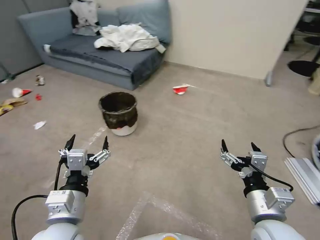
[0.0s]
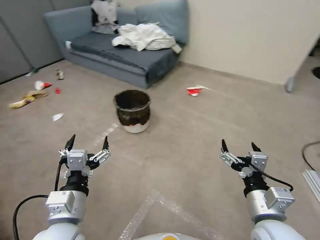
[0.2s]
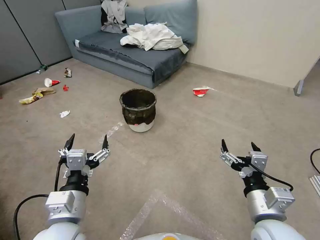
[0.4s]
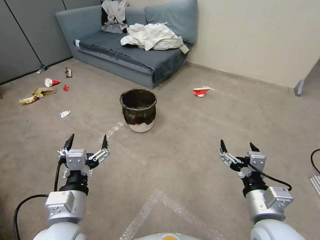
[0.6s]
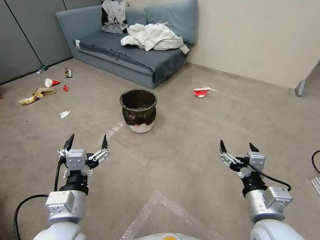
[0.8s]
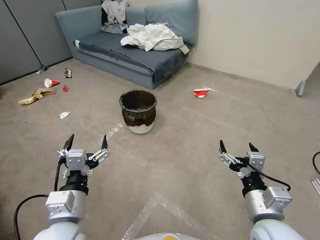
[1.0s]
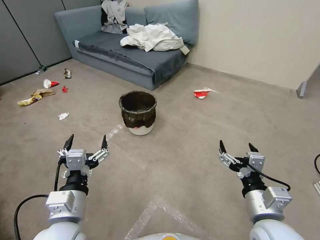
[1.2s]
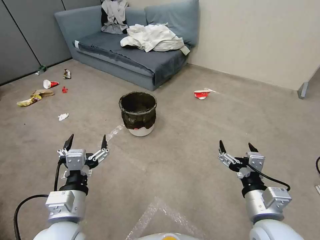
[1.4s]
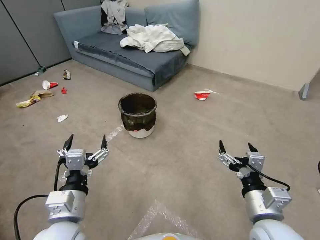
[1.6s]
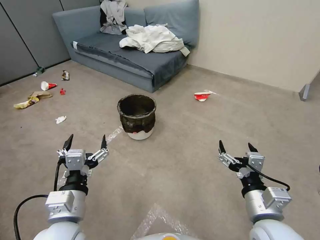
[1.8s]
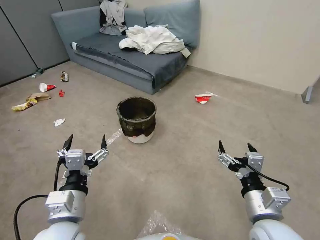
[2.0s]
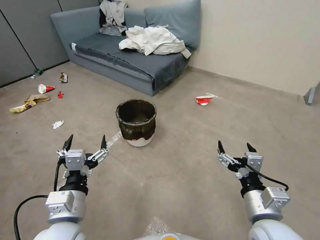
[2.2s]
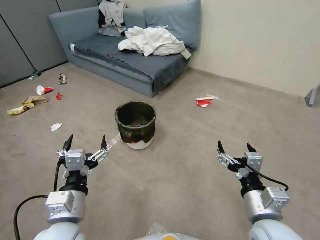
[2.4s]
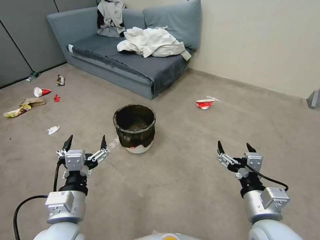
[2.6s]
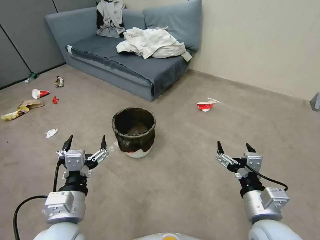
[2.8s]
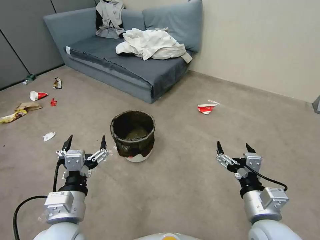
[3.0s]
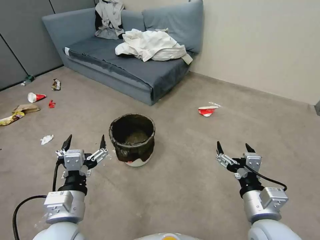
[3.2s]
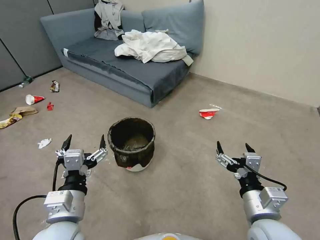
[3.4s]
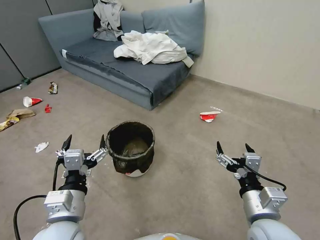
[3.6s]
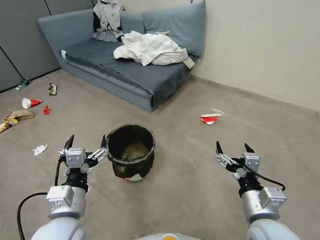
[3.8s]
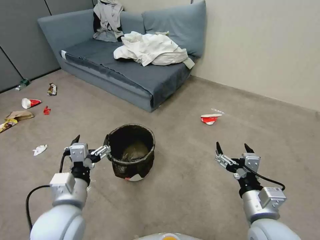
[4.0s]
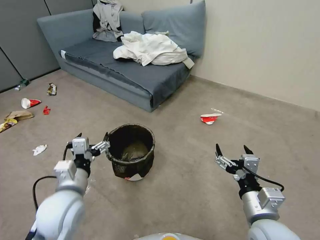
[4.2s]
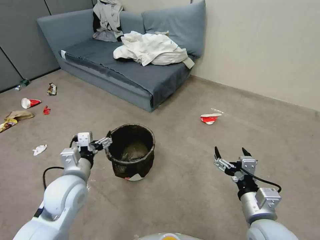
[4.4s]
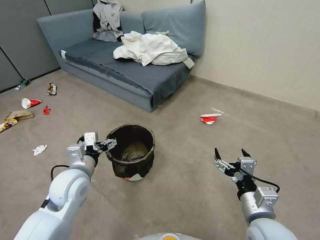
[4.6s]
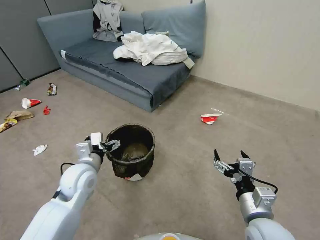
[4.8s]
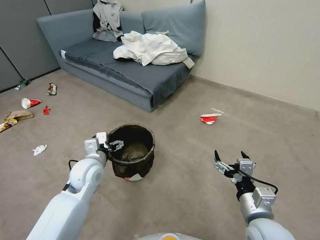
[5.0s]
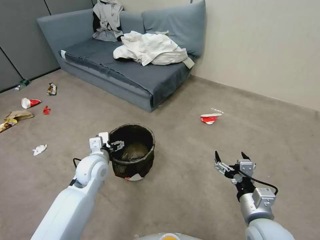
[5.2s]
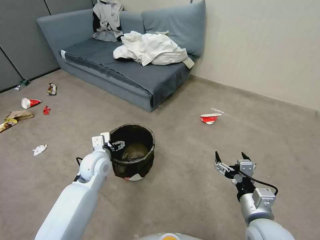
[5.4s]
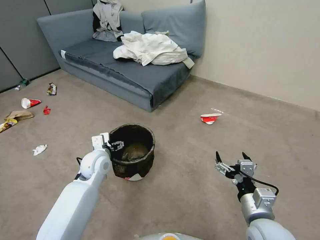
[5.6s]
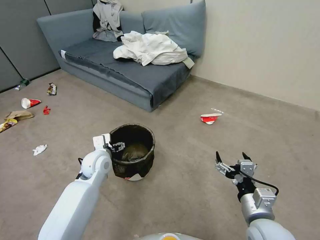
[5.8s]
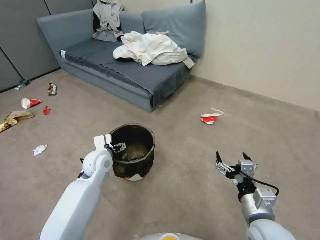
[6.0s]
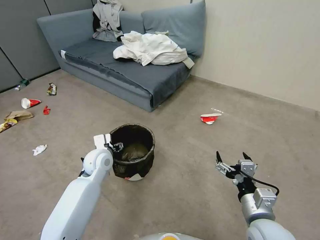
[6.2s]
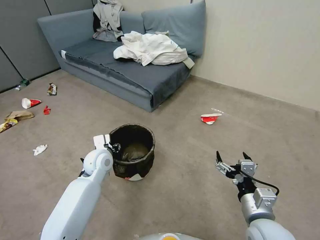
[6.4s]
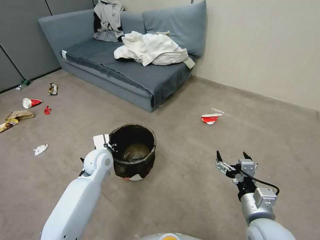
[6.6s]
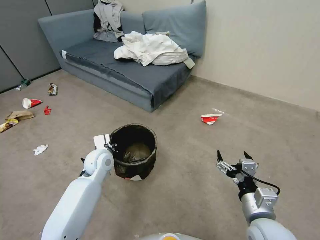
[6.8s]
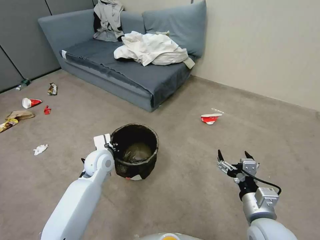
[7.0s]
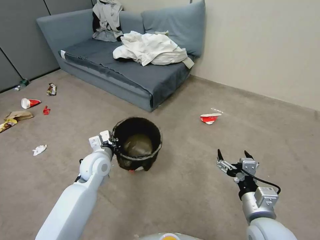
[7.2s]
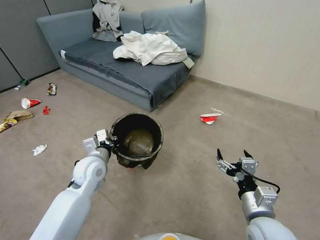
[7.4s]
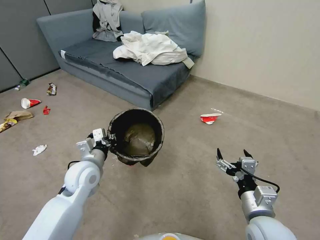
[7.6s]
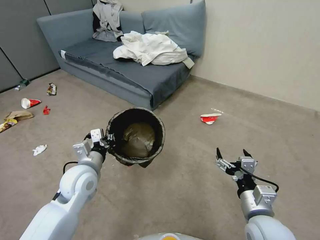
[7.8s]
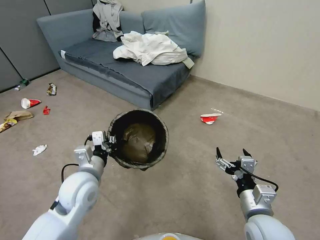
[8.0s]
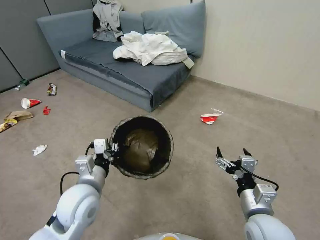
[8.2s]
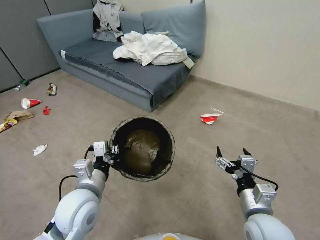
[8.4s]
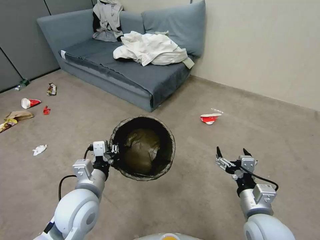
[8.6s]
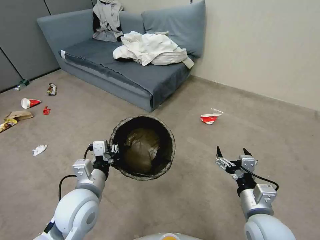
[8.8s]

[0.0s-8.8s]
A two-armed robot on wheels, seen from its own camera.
Task of the whole recording: Pick up the trash can from the floor.
1.4s to 3.0s: Both grippers stay about where they are.
3.0s to 4.4s: The left gripper travels forward by some 10 cm.
4.4s to 5.8s: The left gripper goes about 15 cm forward and downward.
5.8s to 7.4s: The left gripper closes.
7.4s to 8.8s: The left gripper heads backward, covering about 10 cm.

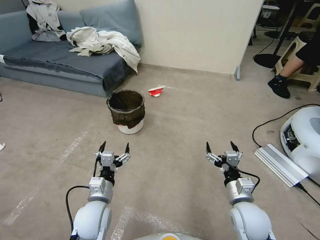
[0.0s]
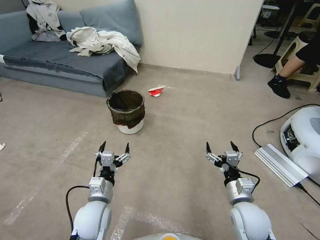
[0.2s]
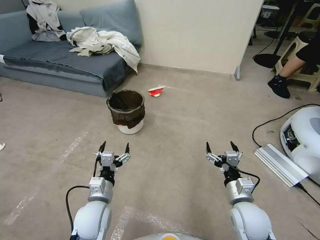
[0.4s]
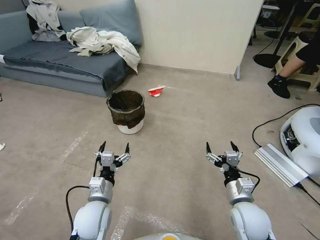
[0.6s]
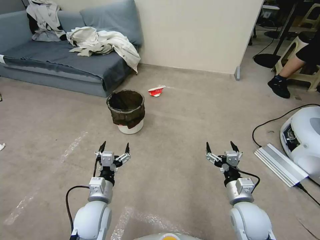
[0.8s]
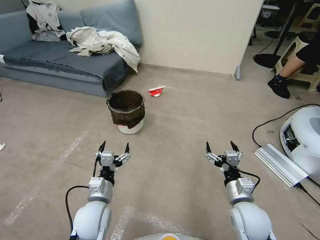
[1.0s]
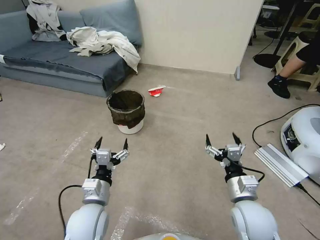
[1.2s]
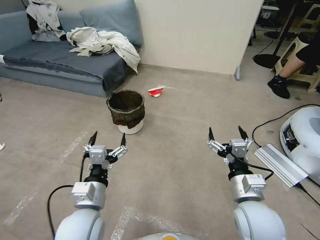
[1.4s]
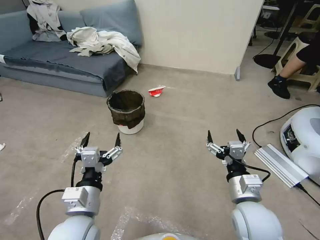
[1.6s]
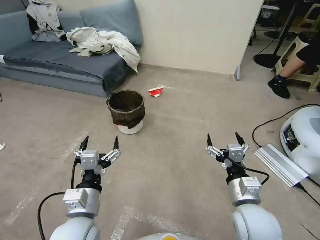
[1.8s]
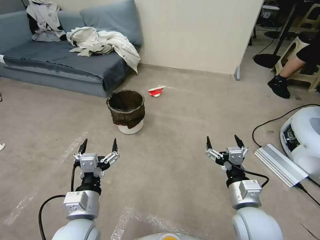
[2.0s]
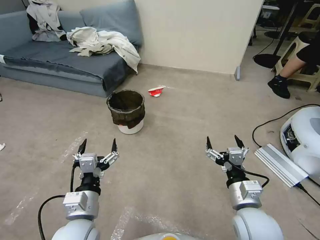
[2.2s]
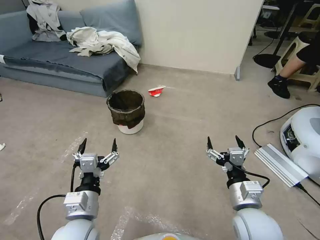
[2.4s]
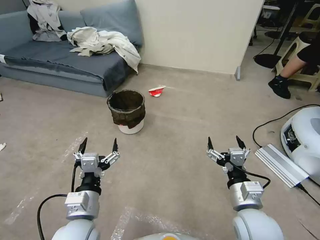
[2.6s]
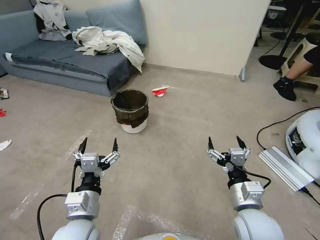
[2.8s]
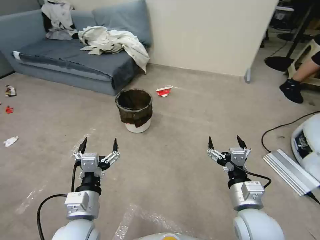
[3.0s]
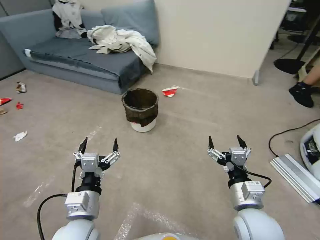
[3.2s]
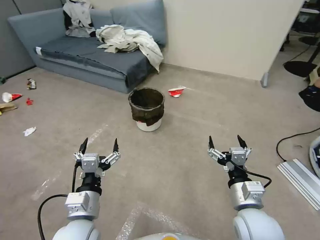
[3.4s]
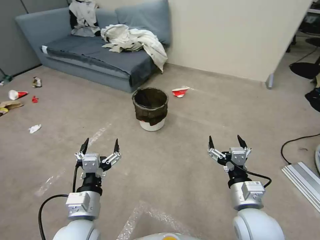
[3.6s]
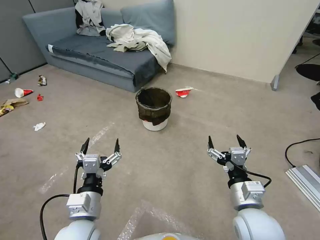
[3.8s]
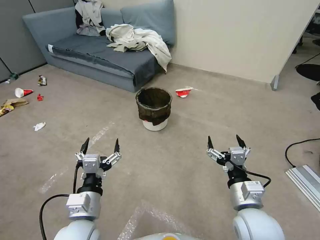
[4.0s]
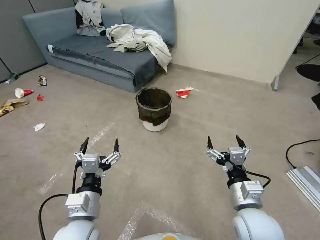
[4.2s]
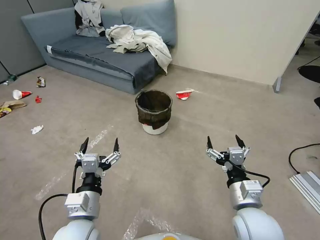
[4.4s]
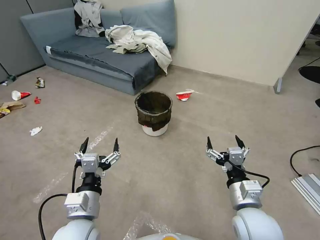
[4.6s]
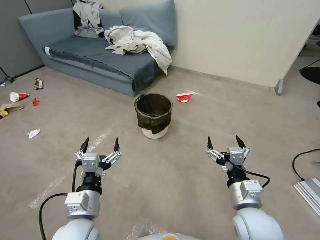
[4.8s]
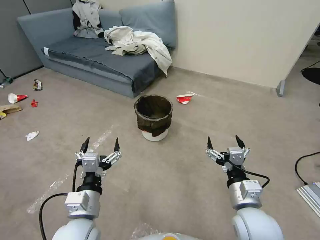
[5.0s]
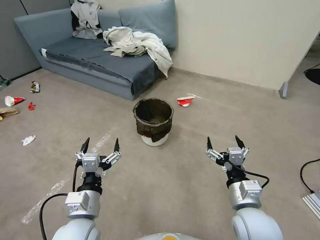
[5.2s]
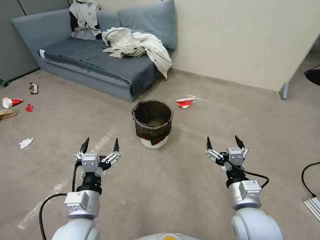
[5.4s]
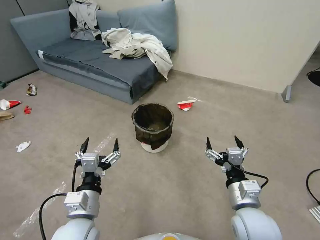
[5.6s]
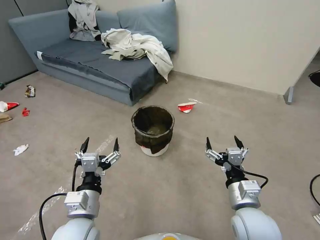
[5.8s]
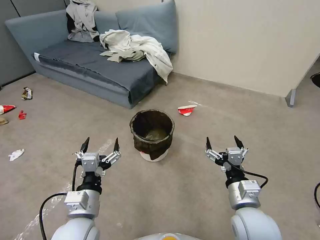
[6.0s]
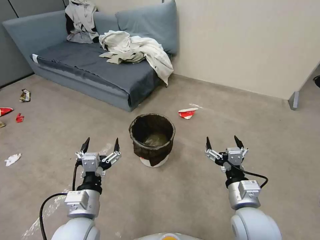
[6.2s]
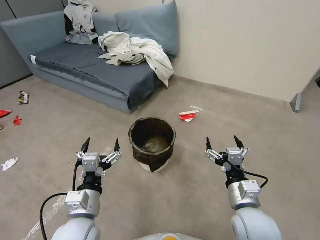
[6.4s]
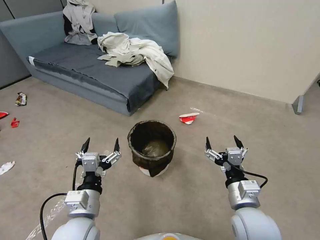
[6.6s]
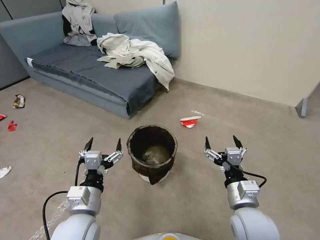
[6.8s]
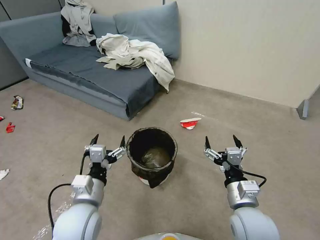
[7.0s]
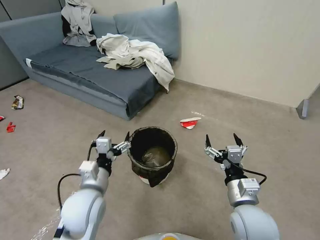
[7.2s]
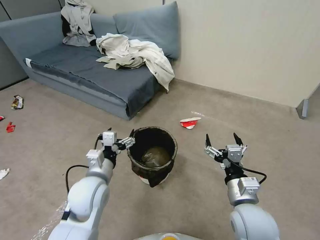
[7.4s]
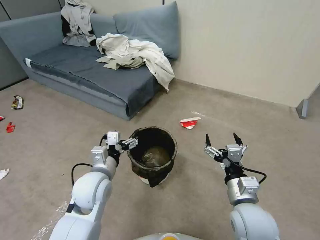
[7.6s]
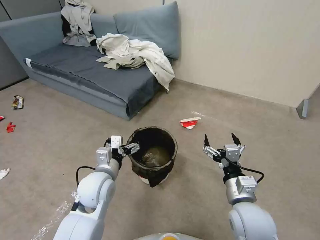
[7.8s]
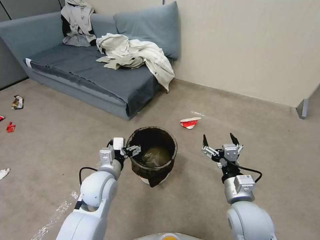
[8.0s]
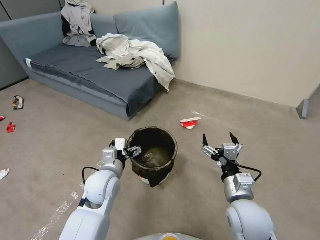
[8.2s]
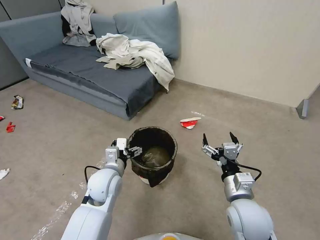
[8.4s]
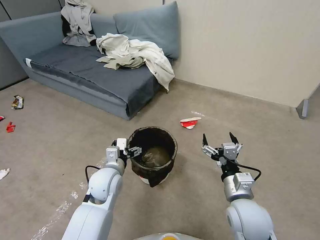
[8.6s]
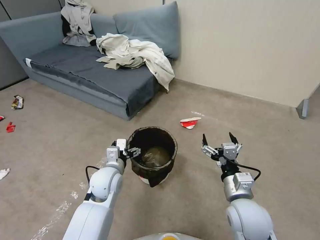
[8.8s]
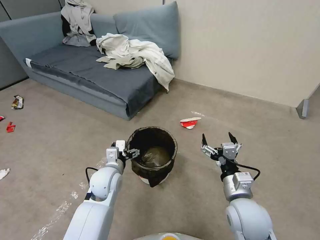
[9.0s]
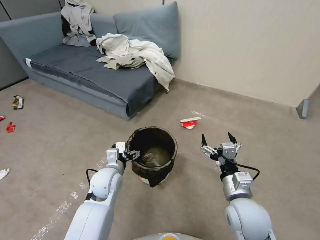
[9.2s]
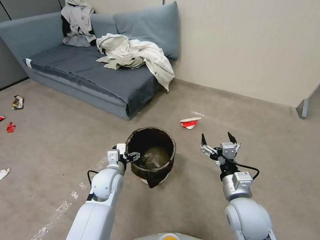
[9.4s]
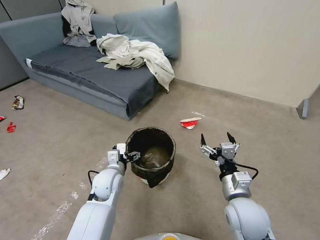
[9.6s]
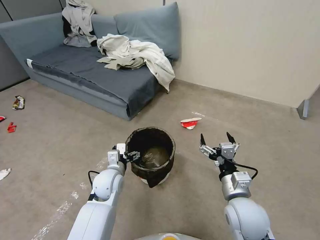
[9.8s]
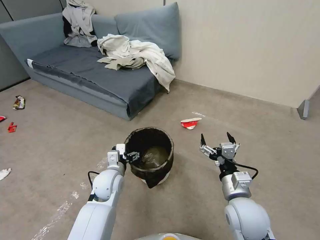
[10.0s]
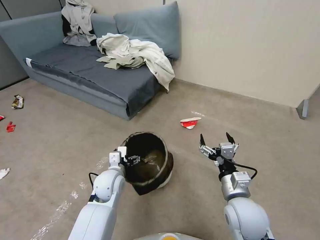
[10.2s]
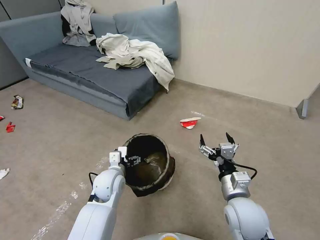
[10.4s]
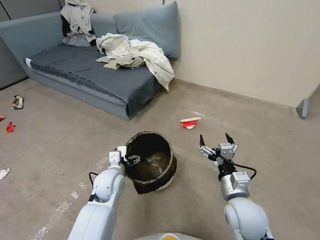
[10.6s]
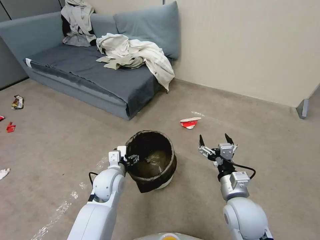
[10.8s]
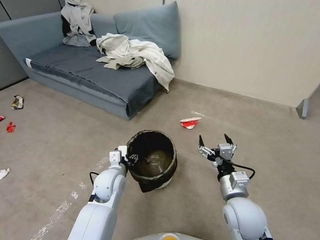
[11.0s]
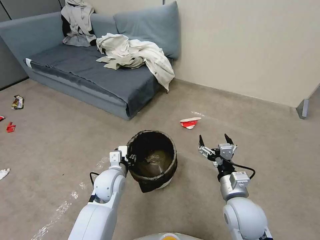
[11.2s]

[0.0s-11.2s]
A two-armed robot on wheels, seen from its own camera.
Task of the whole recording: Pick up the trash can from the floor.
6.4s to 8.0s: The left gripper is displaced forward by approximately 10 cm.
8.0s to 9.6s: The left gripper shifts about 5 cm downward.
9.6s to 11.2s: The left gripper closes.

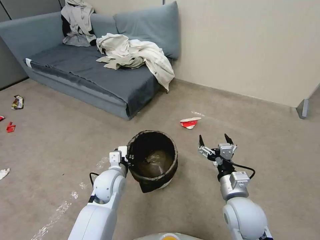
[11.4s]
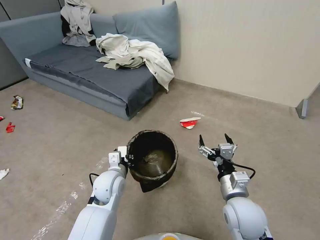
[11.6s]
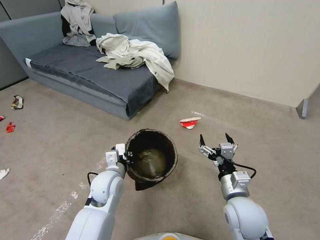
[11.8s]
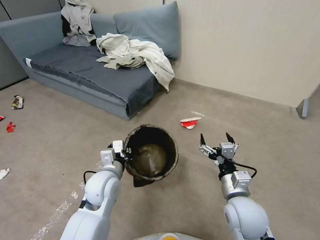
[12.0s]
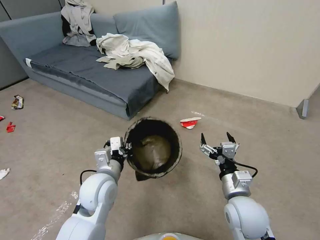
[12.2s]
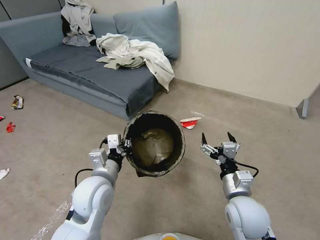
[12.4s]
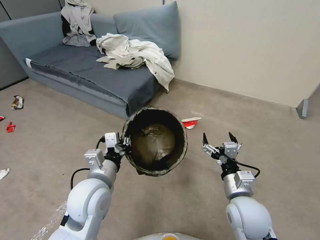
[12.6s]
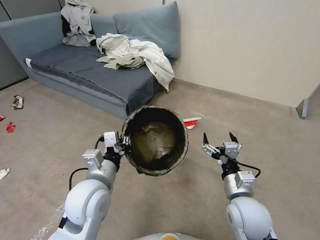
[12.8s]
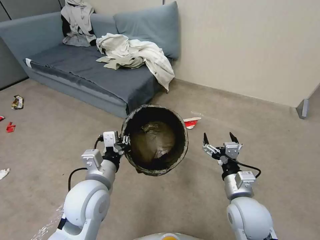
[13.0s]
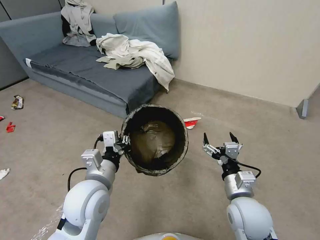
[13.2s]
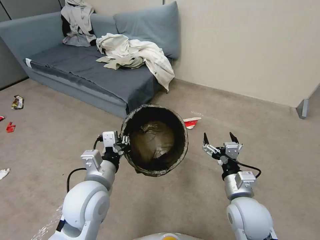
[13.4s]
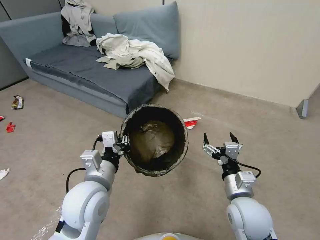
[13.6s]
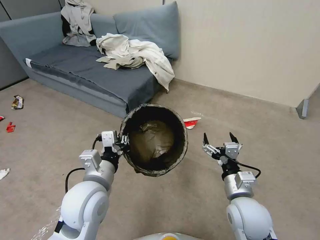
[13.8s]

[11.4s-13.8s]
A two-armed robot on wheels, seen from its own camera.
Task of the whole recording: Pick up the trash can from the floor.
11.4s to 12.6s: The left gripper moves upward and backward, approximately 15 cm.
12.6s to 13.8s: There are only small adjustments of the grippers.
